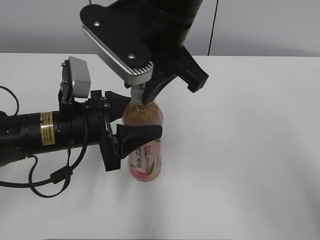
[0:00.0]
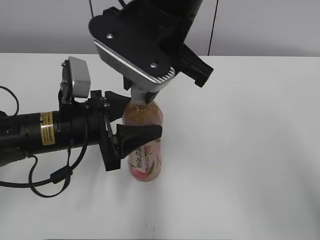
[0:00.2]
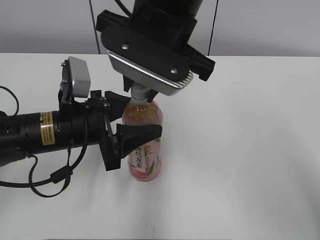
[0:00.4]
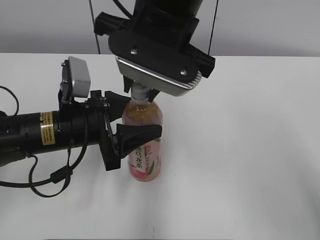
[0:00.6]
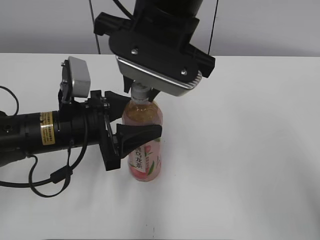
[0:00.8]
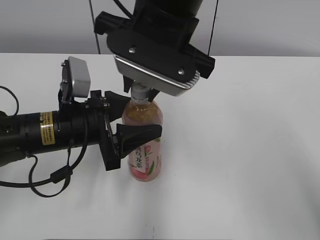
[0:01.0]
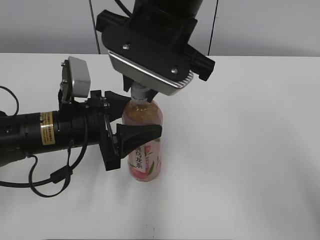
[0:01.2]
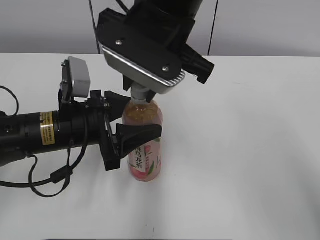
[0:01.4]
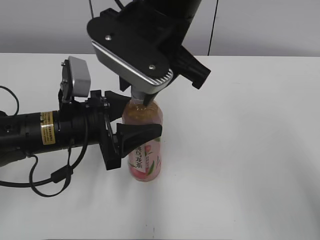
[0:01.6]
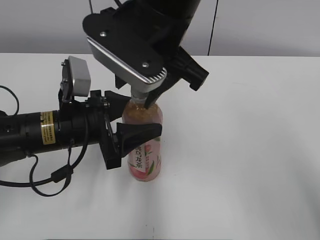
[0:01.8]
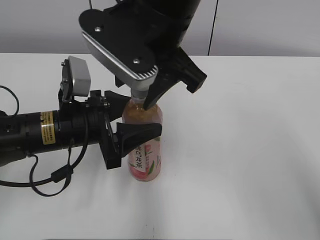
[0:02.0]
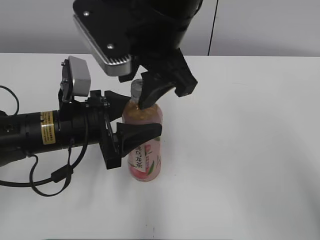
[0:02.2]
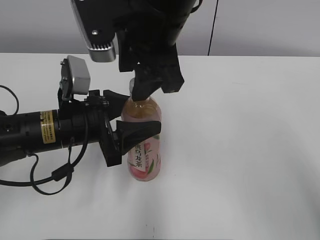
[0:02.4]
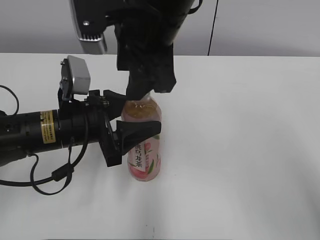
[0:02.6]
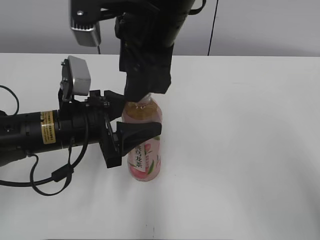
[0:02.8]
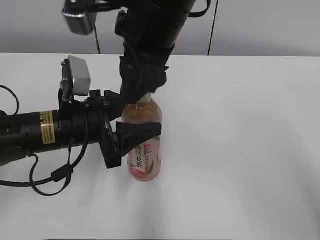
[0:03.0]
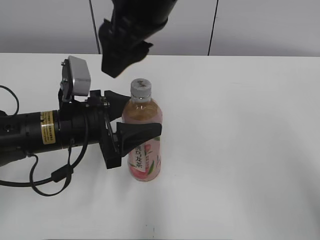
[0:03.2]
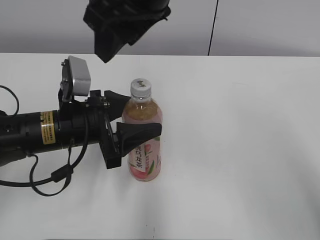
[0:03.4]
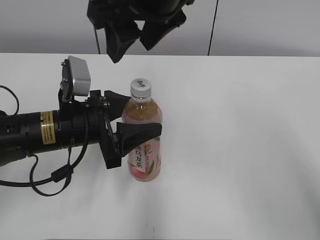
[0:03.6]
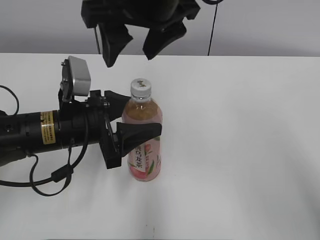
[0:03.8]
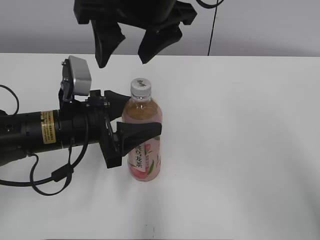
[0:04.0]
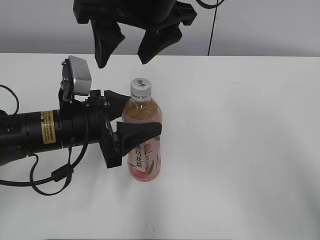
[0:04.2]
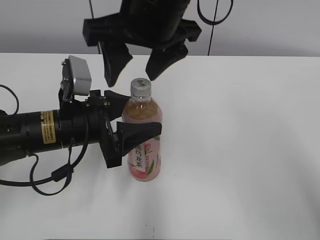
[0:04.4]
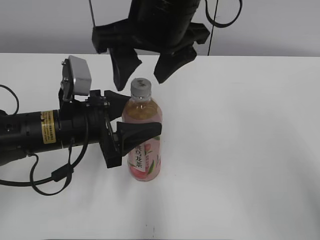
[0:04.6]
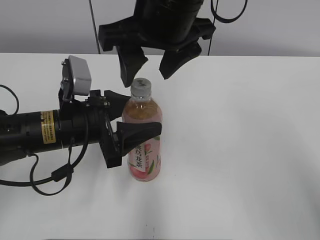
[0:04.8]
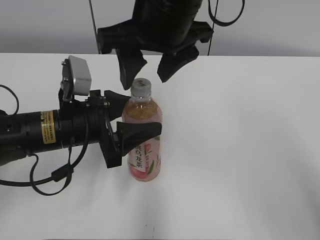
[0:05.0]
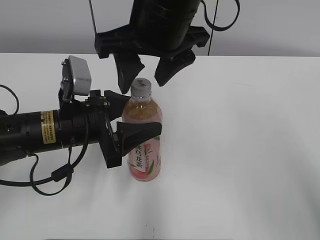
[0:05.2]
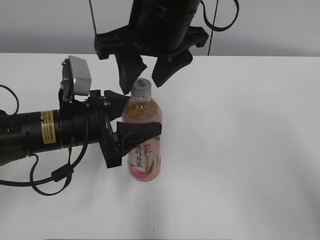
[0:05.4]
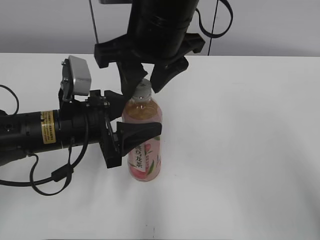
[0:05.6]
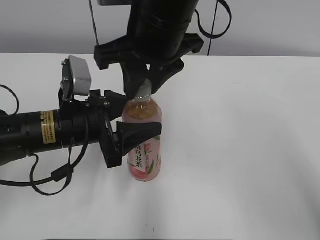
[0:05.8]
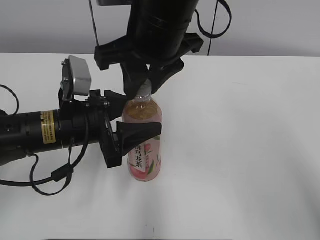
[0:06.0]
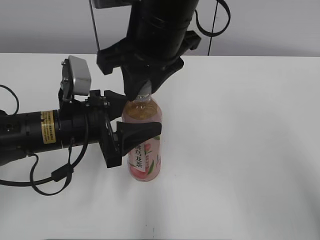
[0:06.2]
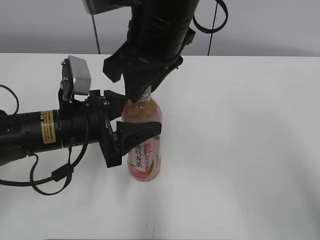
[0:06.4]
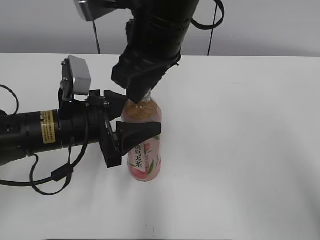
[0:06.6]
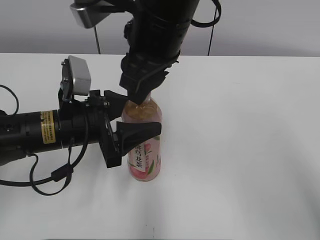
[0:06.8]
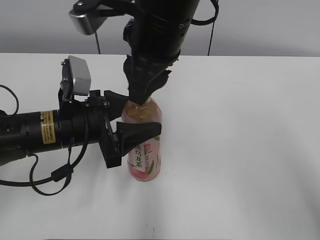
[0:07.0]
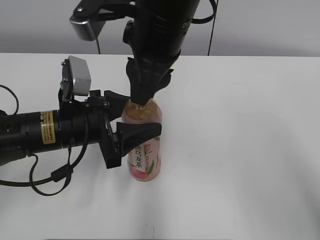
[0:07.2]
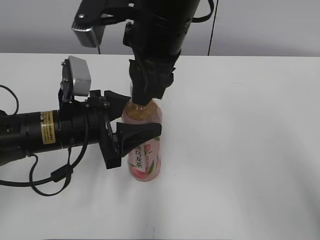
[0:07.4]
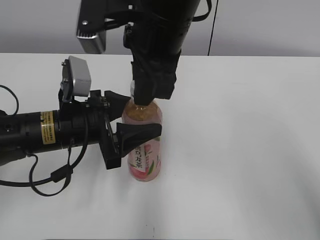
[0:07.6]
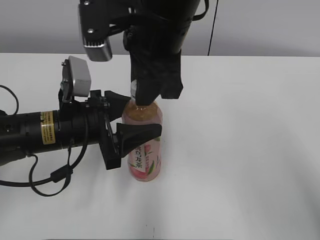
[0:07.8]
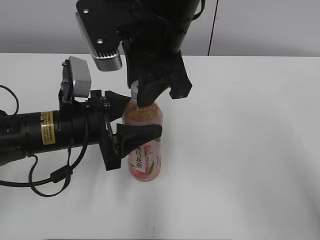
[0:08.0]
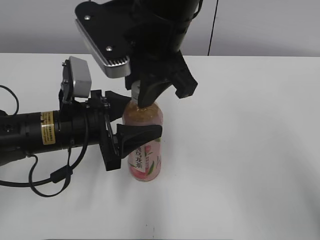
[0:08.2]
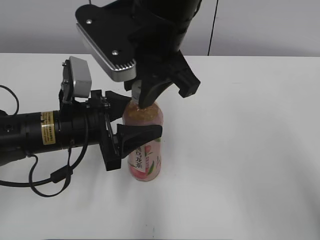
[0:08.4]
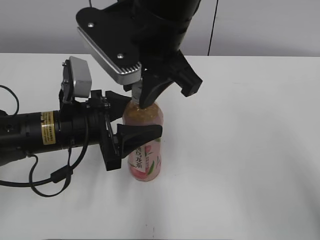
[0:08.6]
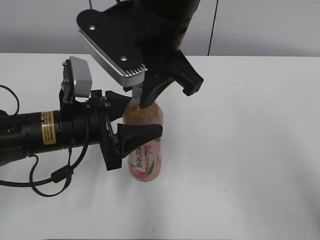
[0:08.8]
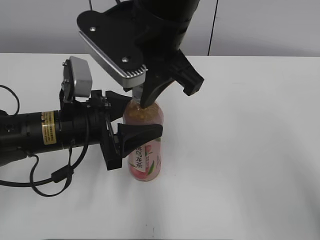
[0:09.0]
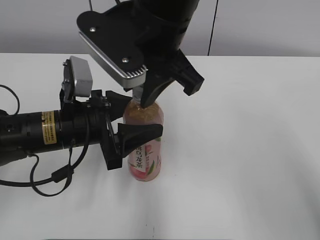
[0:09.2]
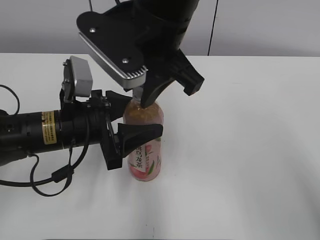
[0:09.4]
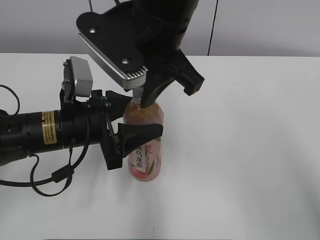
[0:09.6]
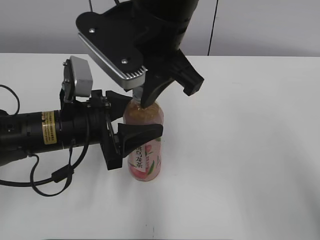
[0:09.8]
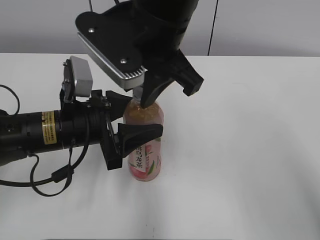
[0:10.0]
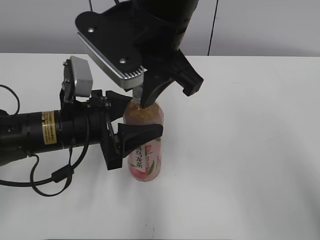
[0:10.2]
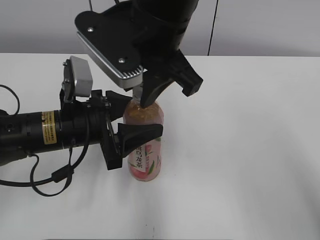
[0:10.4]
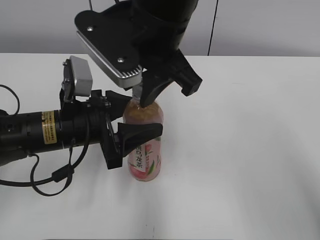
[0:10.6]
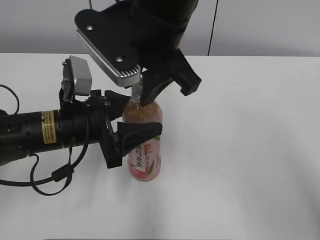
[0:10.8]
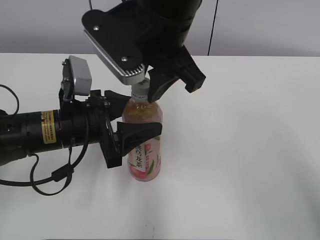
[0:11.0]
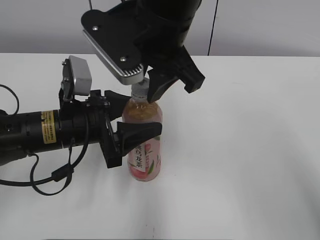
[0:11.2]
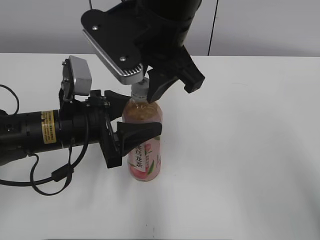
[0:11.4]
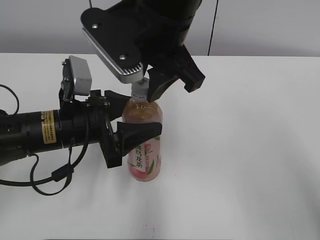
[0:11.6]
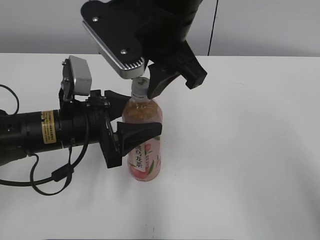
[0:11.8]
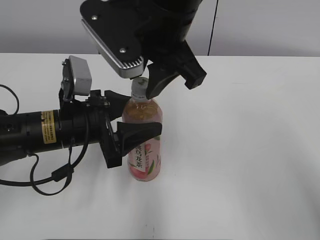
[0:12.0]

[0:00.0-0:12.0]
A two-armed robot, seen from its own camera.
0:01.6 to 0:03.0: The right gripper opens up.
0:04.4 to 0:06.0: The right gripper closes.
0:09.0 to 0:10.4: Both grippers stay about where they are.
0:10.4 to 0:12.0: The two grippers keep their place.

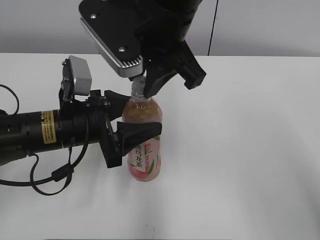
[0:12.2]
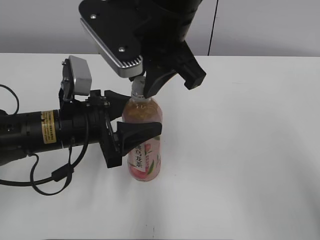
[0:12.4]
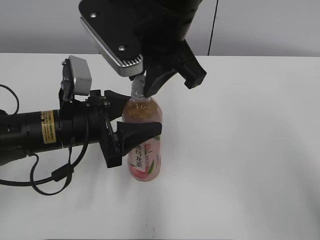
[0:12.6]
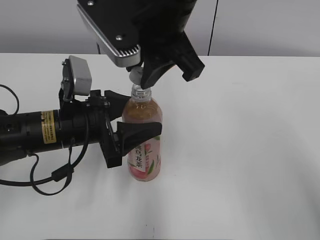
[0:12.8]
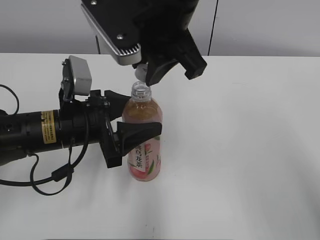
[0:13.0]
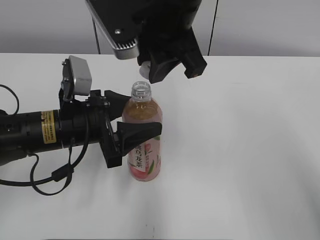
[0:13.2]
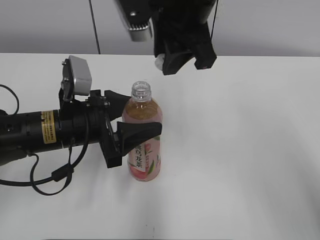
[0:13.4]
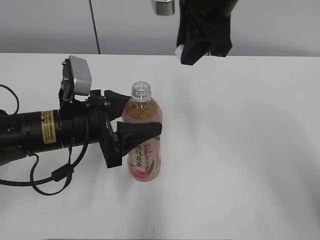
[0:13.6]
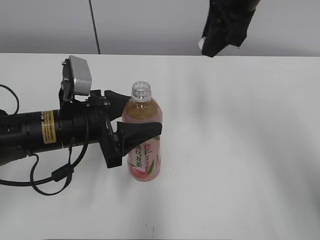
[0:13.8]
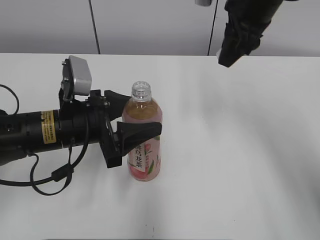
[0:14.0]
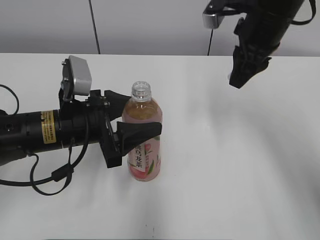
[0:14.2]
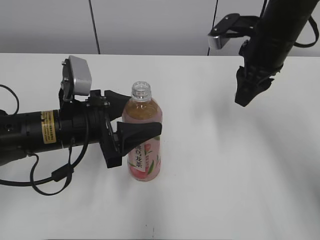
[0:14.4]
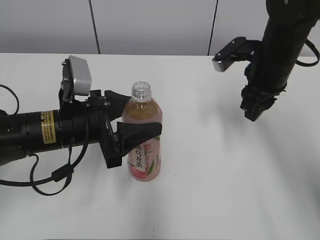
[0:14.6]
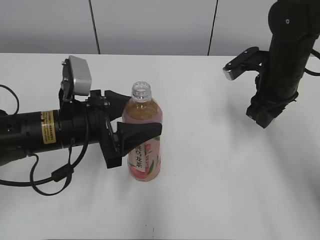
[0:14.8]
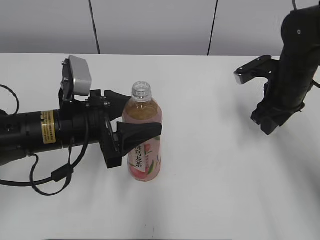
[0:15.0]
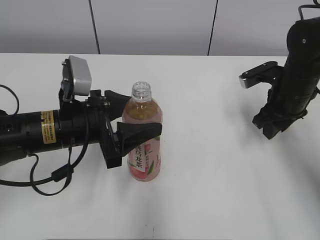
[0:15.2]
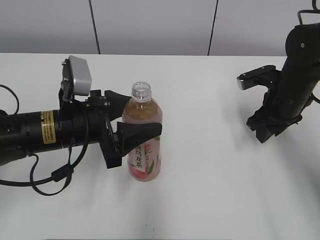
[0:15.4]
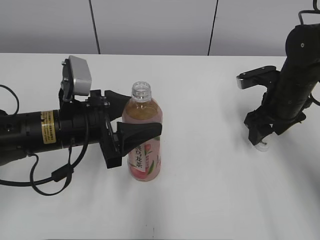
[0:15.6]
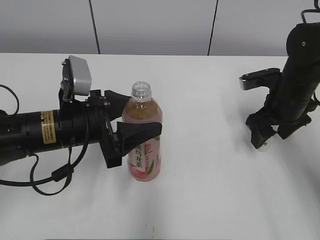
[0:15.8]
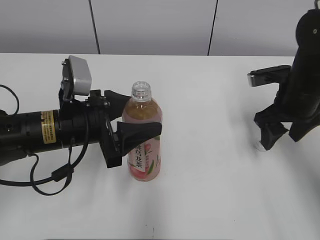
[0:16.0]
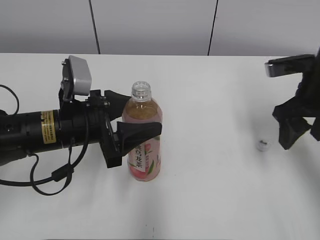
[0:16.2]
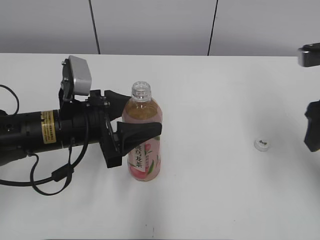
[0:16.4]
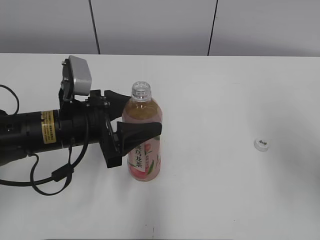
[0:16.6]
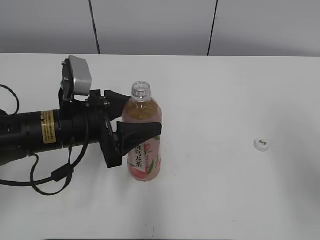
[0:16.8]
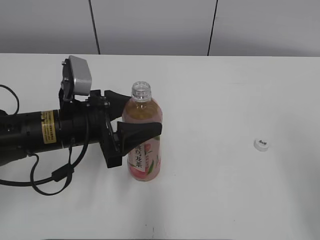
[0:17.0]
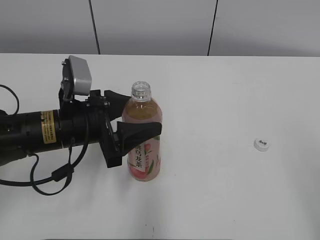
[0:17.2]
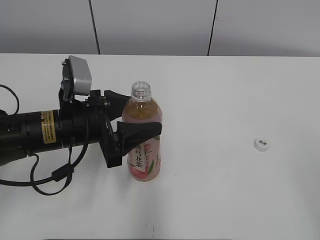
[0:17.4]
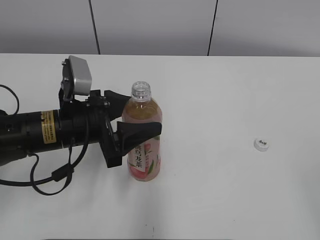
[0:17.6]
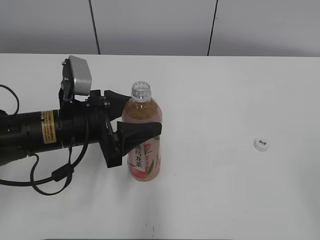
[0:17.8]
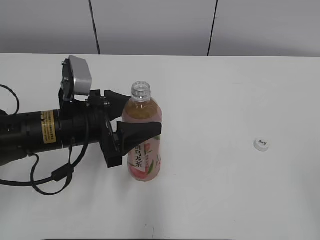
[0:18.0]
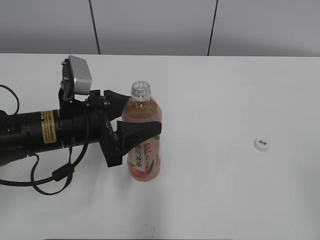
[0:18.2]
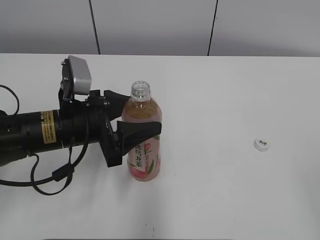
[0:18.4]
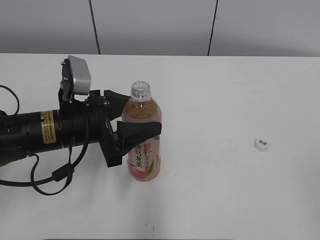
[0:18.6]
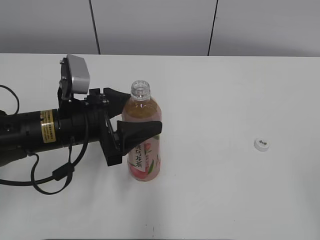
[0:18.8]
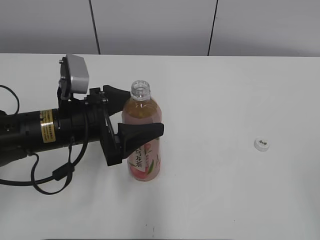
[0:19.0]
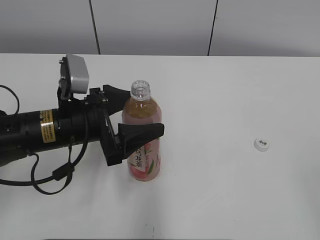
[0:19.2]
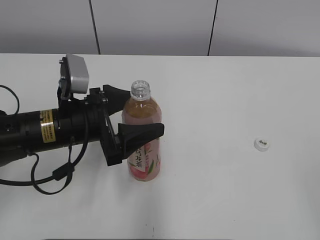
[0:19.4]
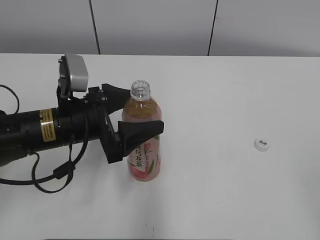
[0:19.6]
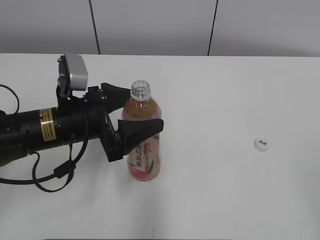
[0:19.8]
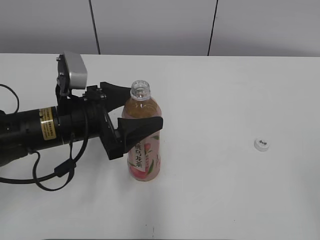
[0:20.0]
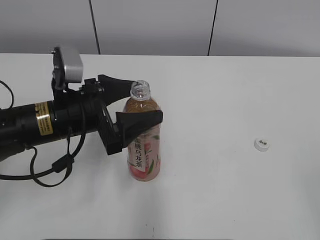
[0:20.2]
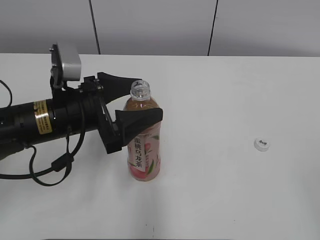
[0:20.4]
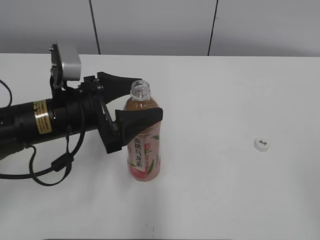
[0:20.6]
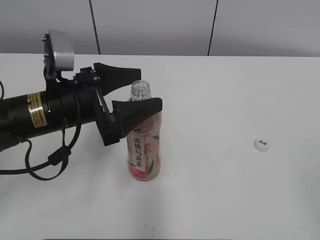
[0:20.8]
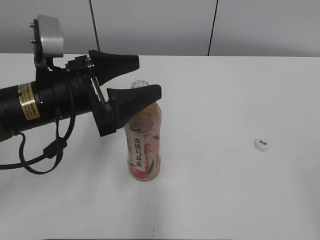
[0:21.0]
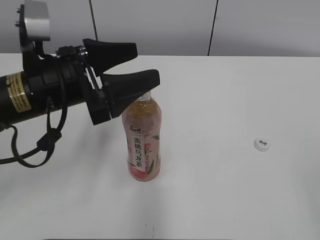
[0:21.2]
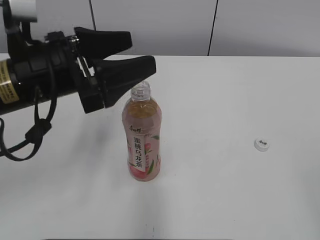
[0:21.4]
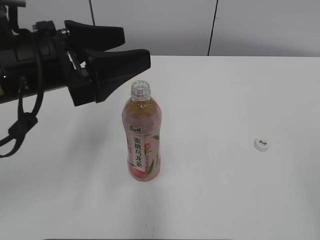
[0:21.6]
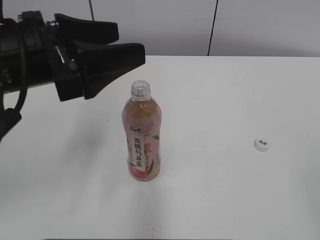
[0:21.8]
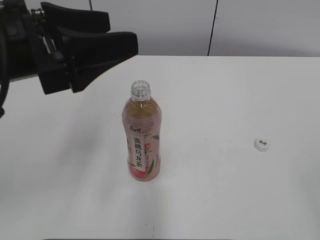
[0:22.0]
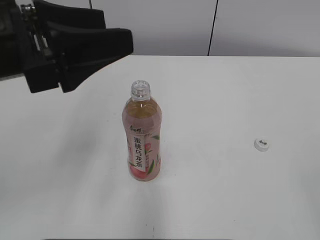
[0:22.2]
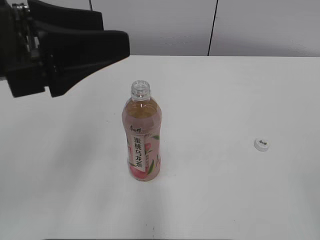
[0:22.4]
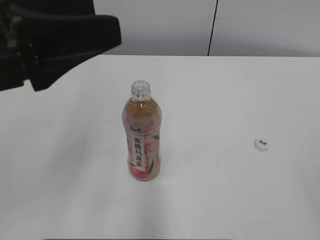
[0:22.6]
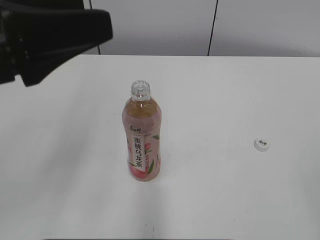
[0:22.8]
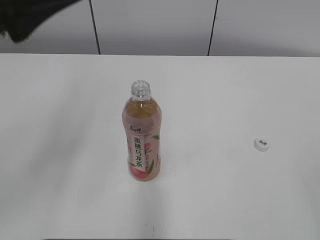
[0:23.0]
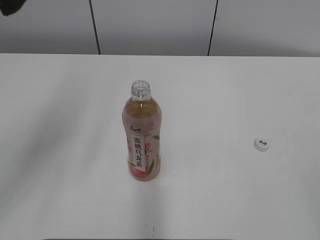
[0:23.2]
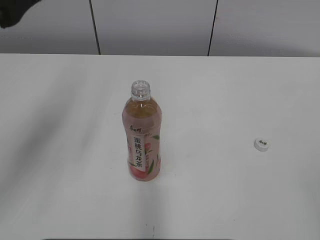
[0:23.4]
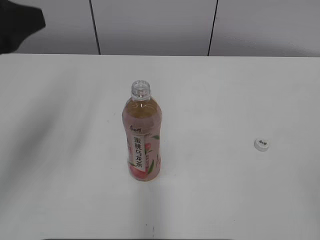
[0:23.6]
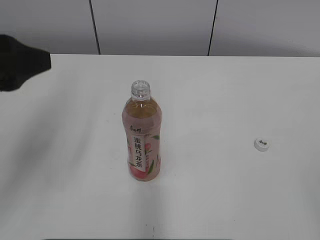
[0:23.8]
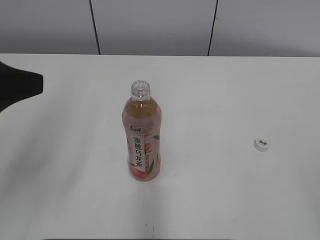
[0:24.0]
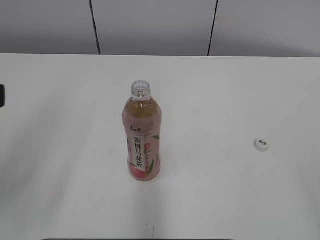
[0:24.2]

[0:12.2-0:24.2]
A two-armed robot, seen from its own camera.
Step, 0:12.8 to 0:15.4: Place the bottle cap on the right.
0:12.2 to 0:13.8: The right gripper goes about 15 cm to the right and forward.
0:13.8 to 0:15.2: The right gripper moves downward and to the right, roughly 20 cm.
0:15.2 to 0:16.6: The right gripper travels backward and upward by some 20 cm, and opens up.
0:16.6 to 0:18.2: The right gripper heads backward, covering roughly 20 cm.
0:18.2 to 0:19.8: The left gripper opens its fingers.
0:19.8 to 0:21.2: The left gripper is displaced upward by about 5 cm.
0:21.2 to 0:22.6: The left gripper moves upward and backward, some 10 cm.
0:22.6 to 0:24.2: The left gripper shifts roughly 10 cm to the left and backward.
